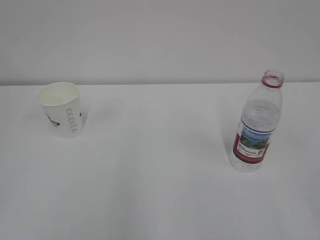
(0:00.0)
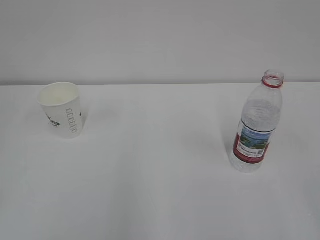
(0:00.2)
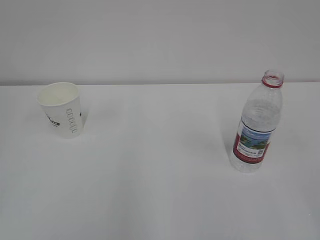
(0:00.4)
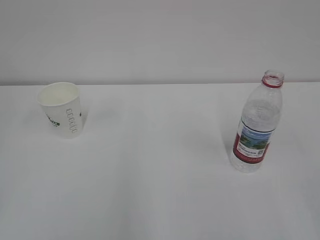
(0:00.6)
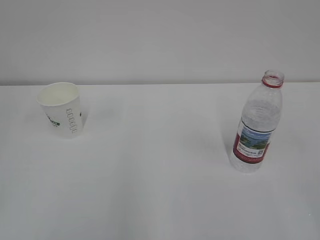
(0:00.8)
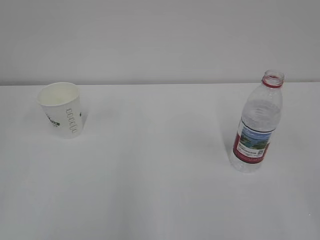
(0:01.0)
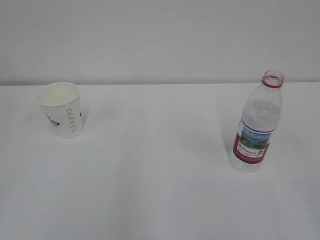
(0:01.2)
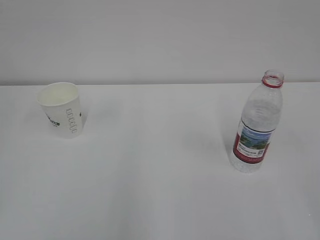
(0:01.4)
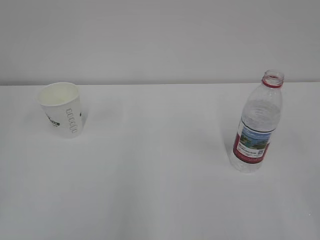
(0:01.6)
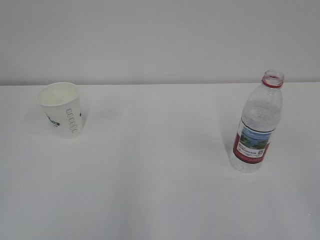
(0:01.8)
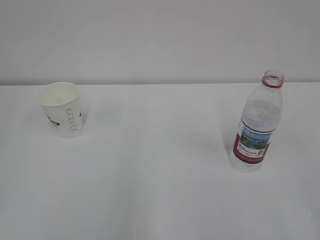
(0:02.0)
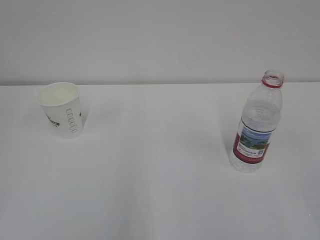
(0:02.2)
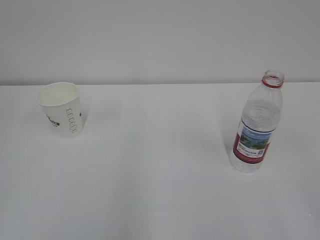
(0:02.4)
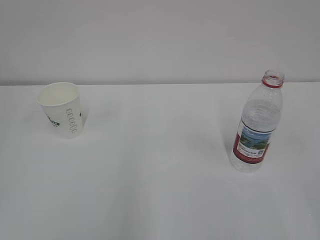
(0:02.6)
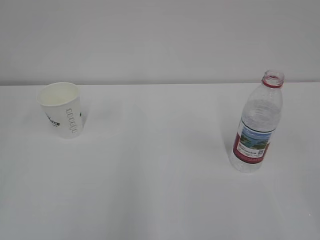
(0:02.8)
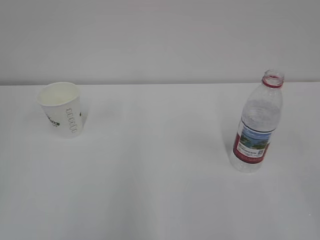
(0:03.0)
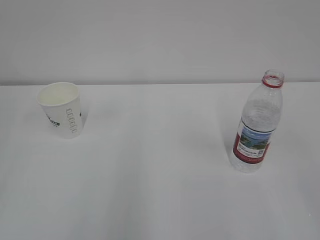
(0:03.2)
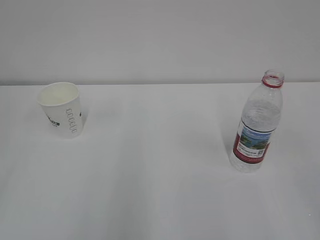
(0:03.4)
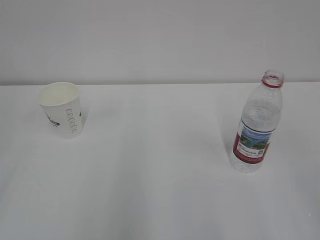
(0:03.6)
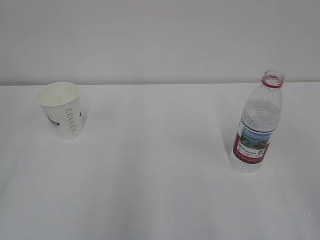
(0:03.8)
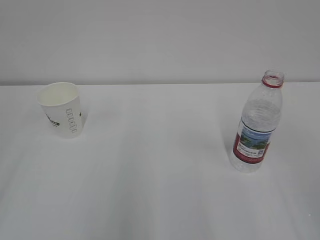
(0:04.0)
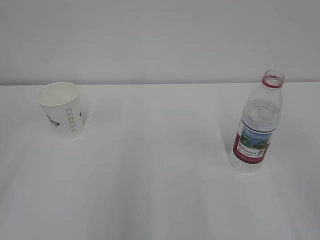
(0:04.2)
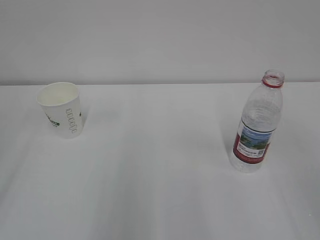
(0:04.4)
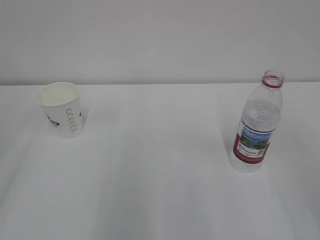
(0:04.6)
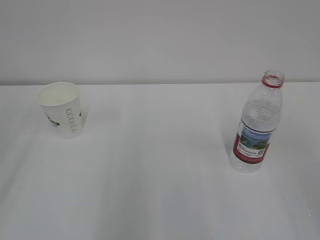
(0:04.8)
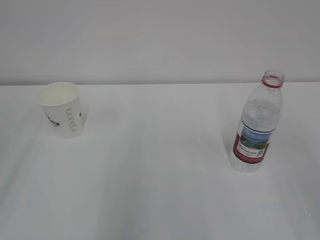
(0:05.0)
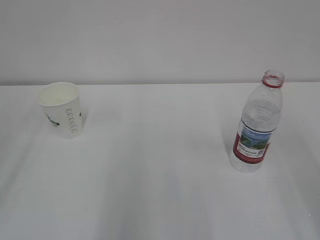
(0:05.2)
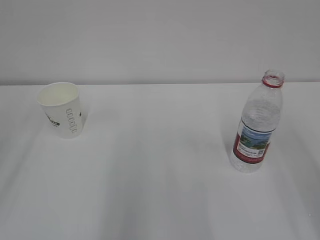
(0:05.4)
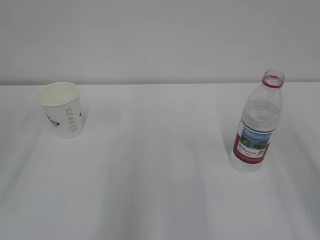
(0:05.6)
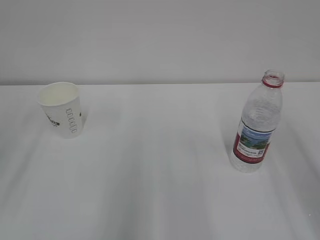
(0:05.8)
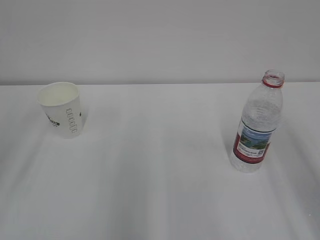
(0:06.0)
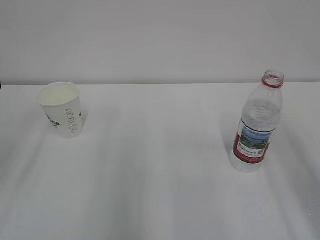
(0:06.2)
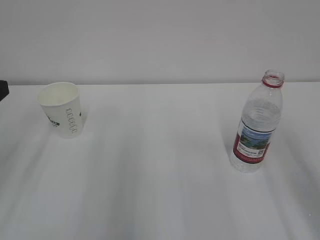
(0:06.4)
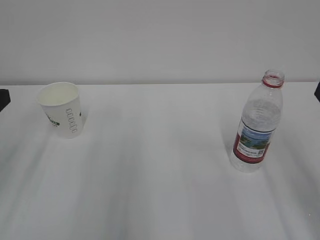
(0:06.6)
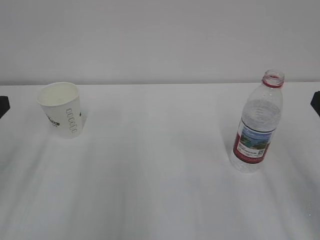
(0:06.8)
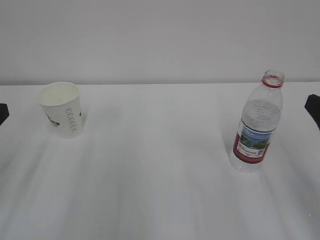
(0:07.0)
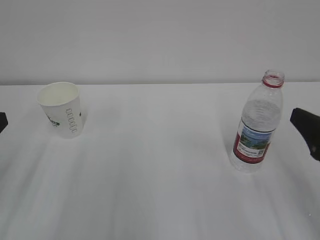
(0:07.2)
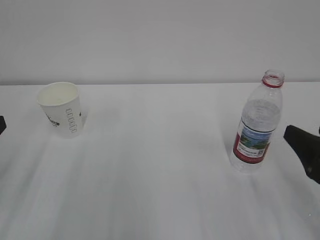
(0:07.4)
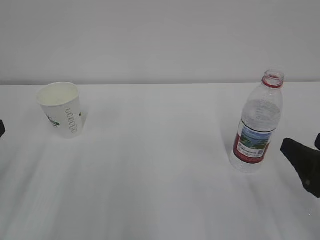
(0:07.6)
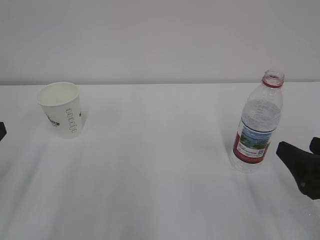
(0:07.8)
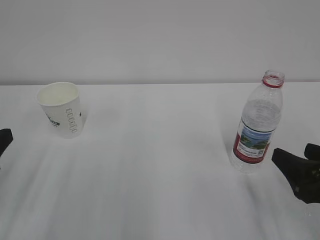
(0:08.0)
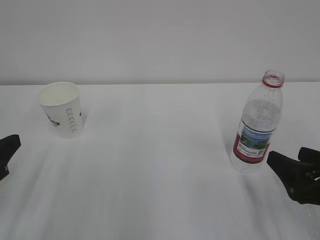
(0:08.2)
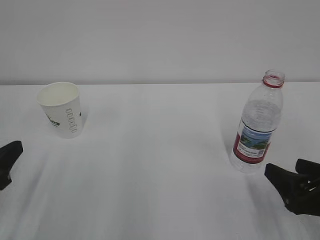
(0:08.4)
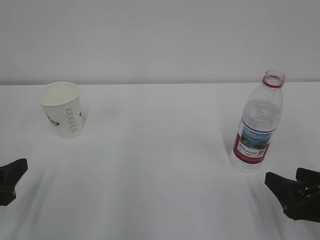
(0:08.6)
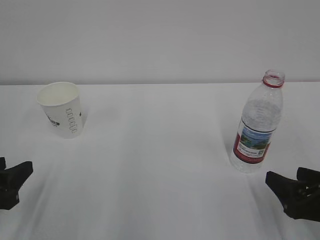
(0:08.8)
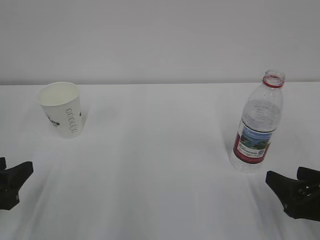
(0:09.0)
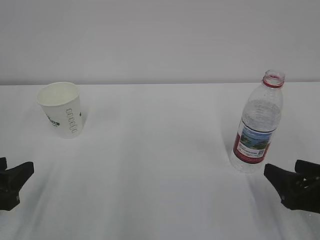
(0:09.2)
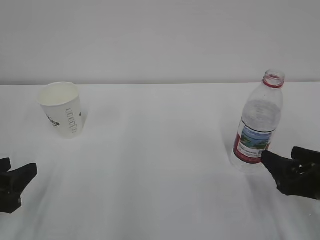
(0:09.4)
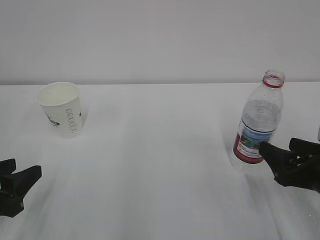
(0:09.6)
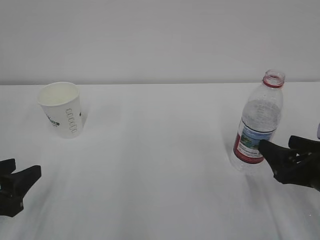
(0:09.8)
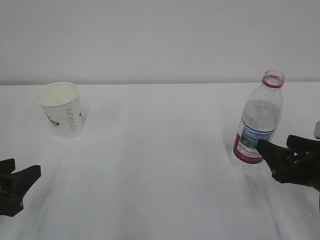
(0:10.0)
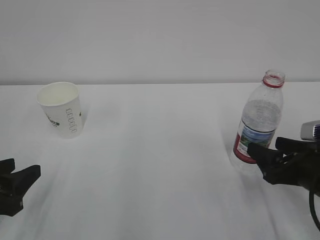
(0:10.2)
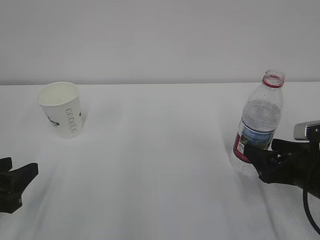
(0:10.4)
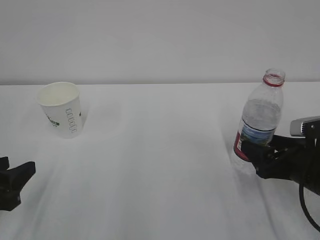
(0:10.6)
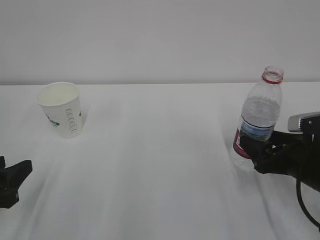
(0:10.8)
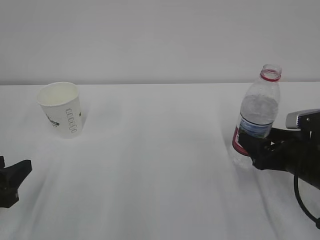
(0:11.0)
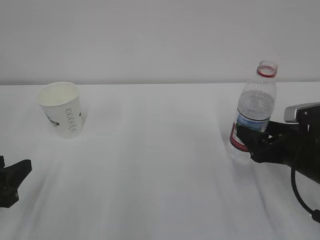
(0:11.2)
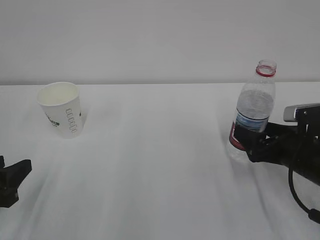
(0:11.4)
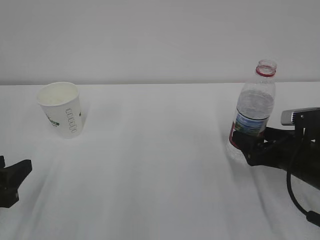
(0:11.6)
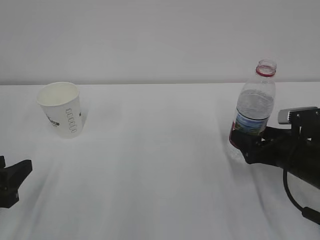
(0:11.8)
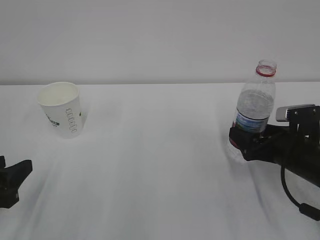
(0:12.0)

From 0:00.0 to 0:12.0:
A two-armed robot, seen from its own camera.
From 0:06.0 to 0:07.6: The right gripper moves downward, approximately 15 cm.
From 0:07.6 to 0:09.0: The two grippers go some 5 cm downward.
From 0:09.0 to 0:10.4: The right gripper travels forward by approximately 5 cm.
From 0:10.4 to 0:12.0: The right gripper goes some 5 cm forward.

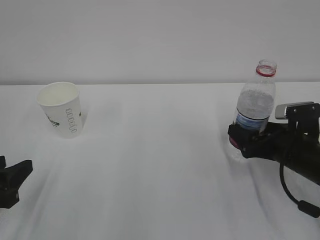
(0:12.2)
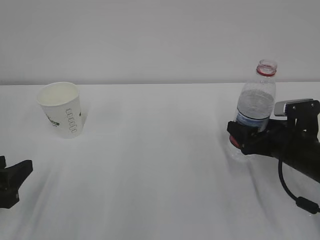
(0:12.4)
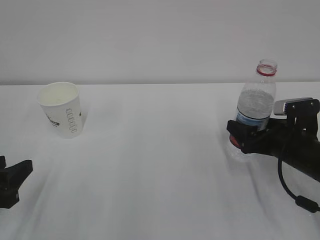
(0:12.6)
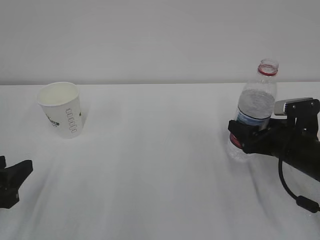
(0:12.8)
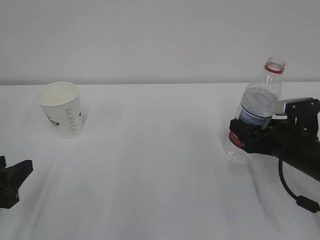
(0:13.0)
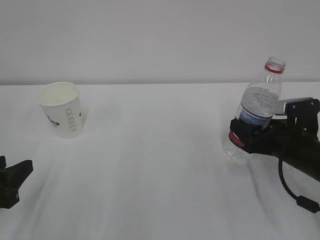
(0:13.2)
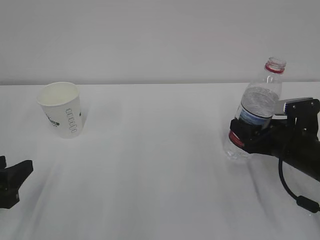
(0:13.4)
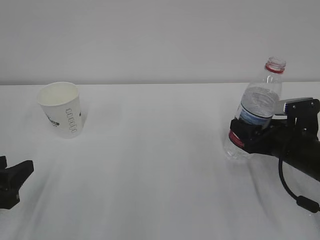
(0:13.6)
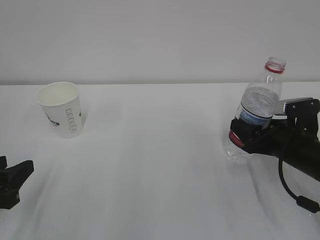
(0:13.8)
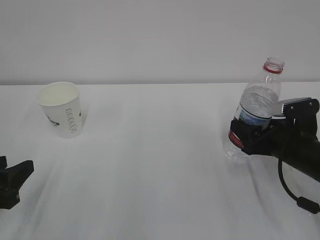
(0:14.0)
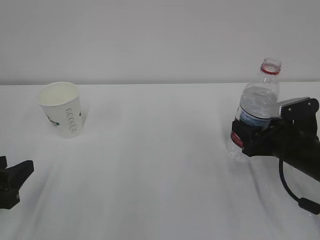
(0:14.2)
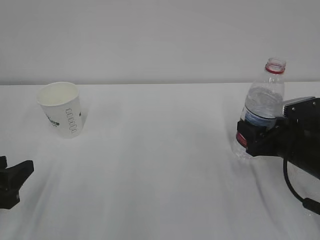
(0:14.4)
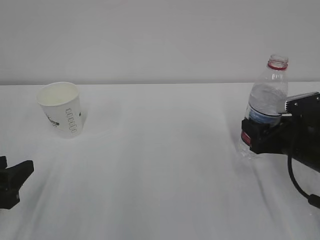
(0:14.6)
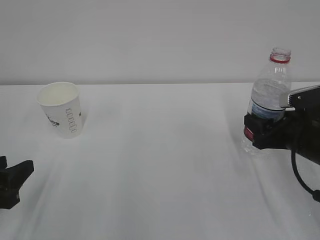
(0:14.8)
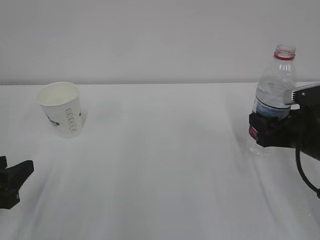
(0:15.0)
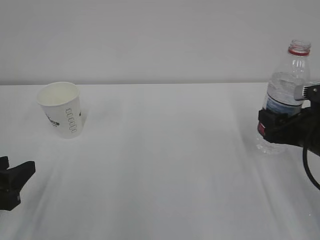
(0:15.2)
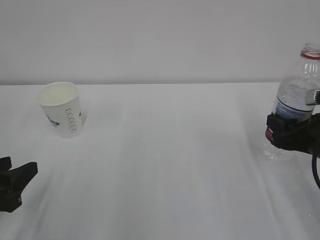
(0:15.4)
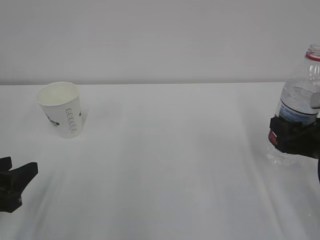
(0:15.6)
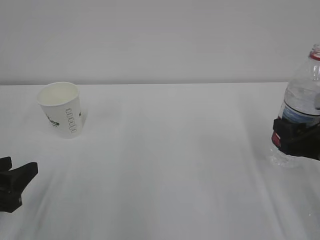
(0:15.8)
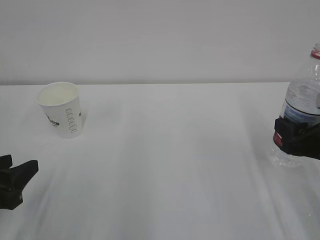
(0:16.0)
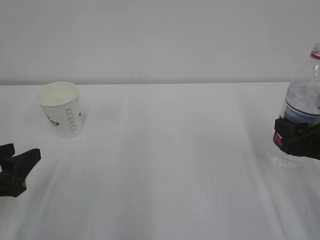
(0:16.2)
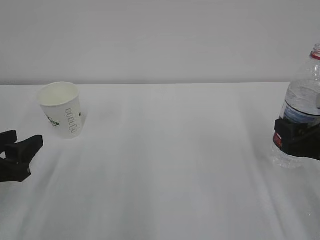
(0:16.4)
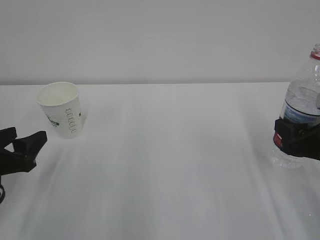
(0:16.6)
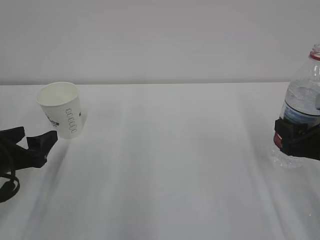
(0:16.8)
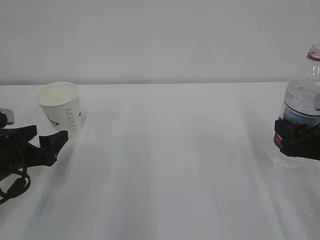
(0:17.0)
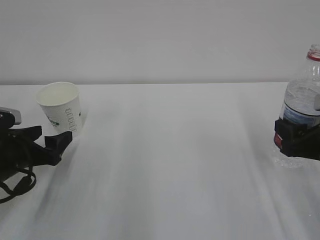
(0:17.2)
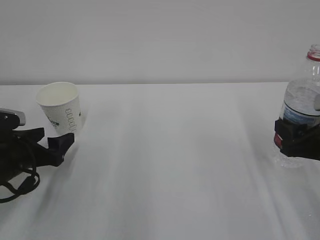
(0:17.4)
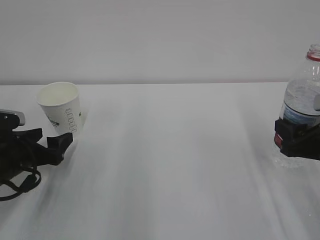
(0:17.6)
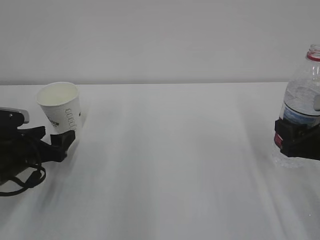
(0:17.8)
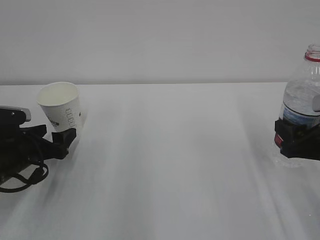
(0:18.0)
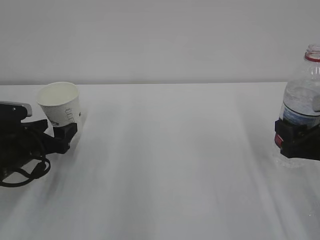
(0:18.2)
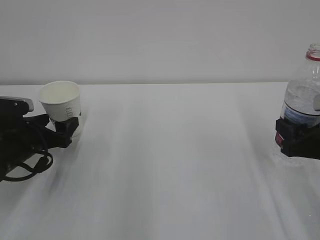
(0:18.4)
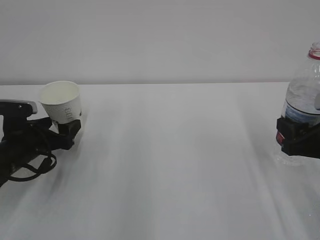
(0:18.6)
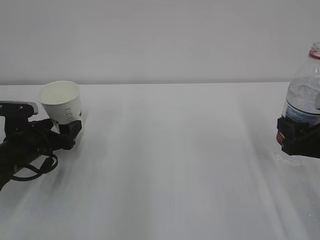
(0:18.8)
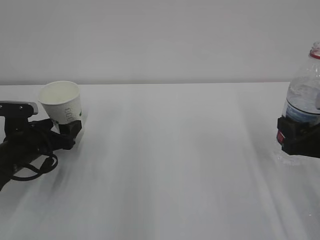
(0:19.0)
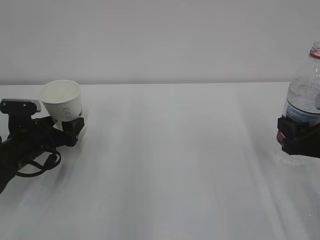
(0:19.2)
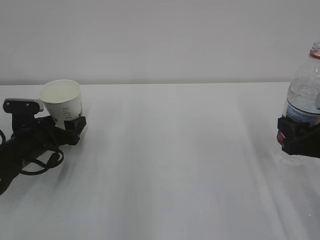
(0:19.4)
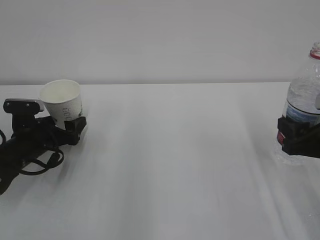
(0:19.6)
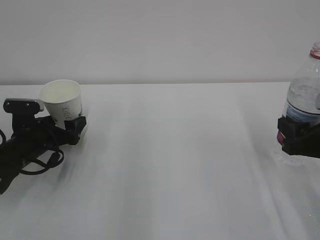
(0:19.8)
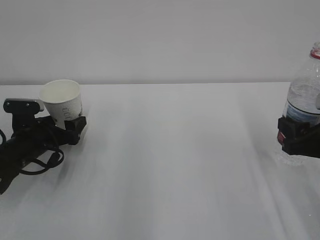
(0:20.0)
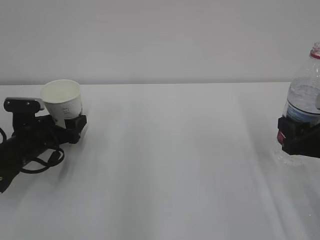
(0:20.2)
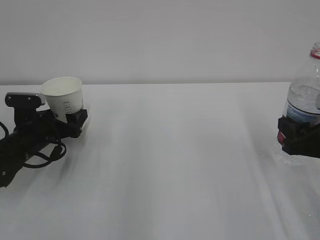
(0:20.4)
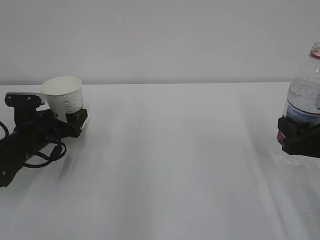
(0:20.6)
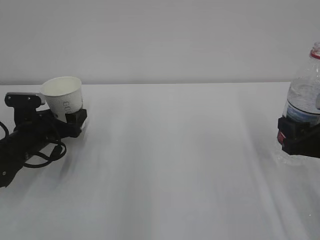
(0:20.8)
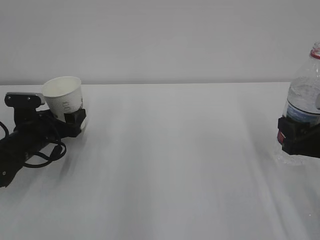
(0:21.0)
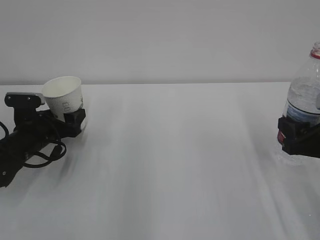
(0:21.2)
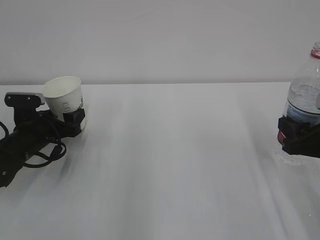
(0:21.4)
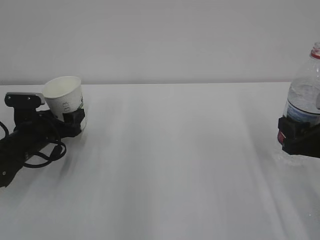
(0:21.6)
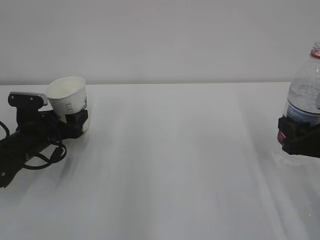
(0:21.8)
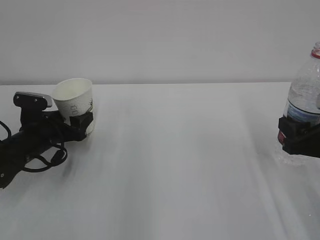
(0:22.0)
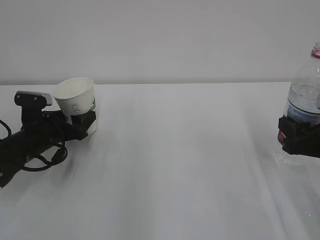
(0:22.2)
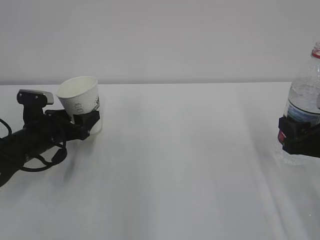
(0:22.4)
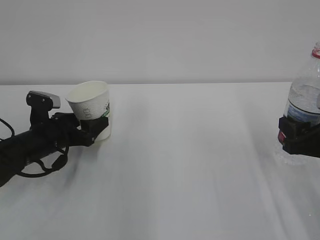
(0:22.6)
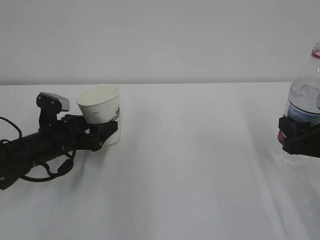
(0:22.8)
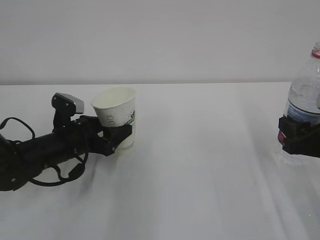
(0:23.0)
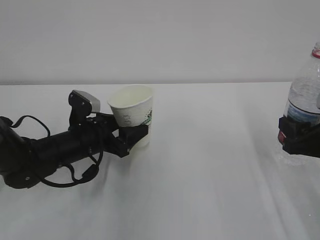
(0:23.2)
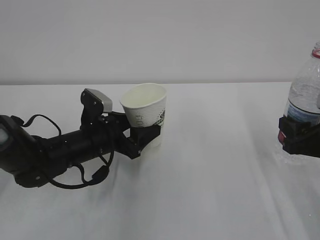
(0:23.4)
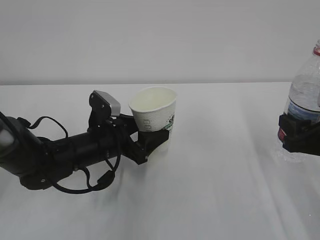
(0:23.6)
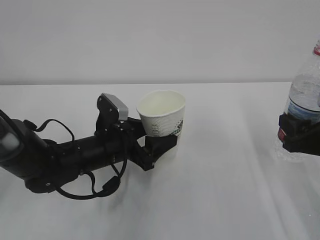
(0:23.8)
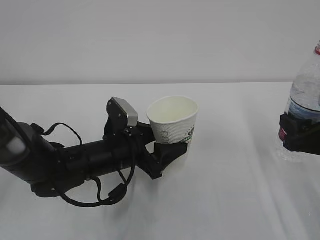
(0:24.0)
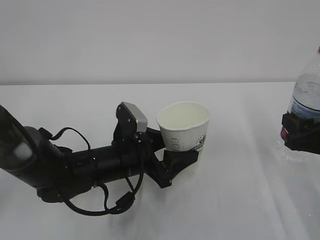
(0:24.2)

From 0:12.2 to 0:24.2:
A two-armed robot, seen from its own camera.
From 0:12.2 to 0:13.8: The right gripper closes.
From 0:13.8 to 0:15.2: The right gripper changes place by roughly 5 cm.
From 0:15.2 to 0:16.6: The grippers move only a little.
From 0:16.6 to 0:18.2: The left gripper travels forward and downward by about 10 cm, and opens up.
From 0:18.2 to 0:19.8: The grippers make only small movements.
From 0:19.8 to 0:21.2: The left gripper closes its fingers.
From 0:21.2 to 0:22.6: The grippers stay close to where they were, moving slightly.
From 0:22.6 to 0:24.2: The left gripper travels to the right by some 15 cm.
